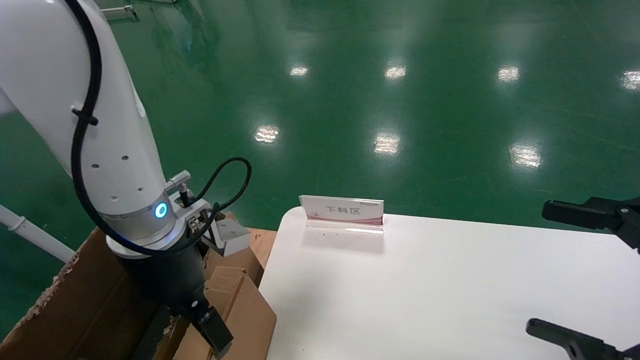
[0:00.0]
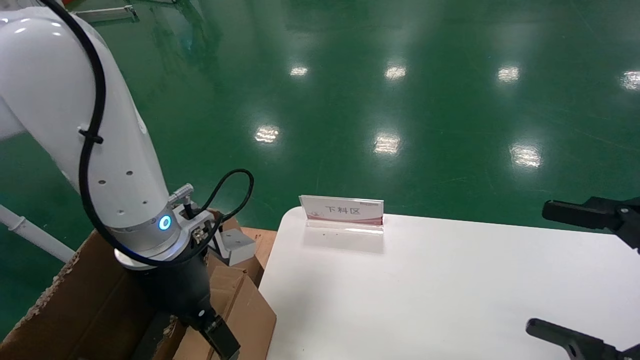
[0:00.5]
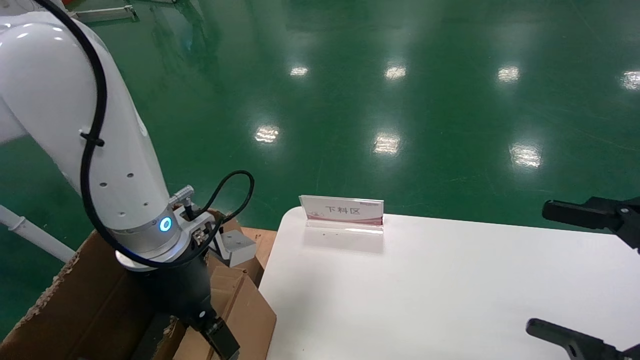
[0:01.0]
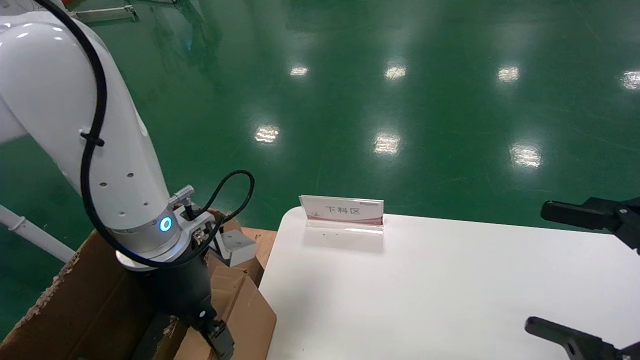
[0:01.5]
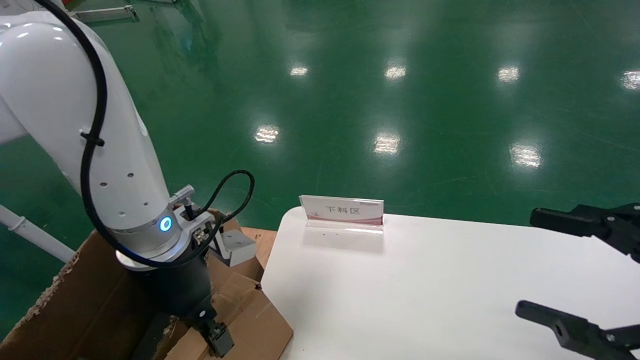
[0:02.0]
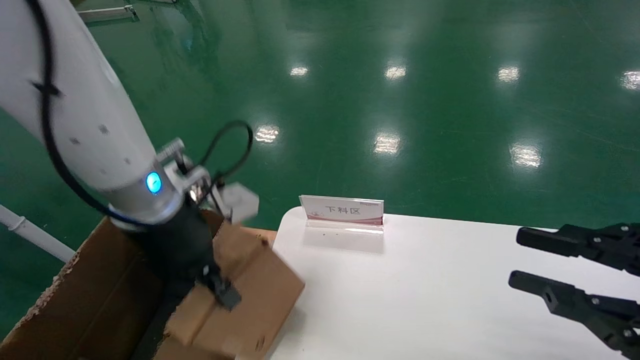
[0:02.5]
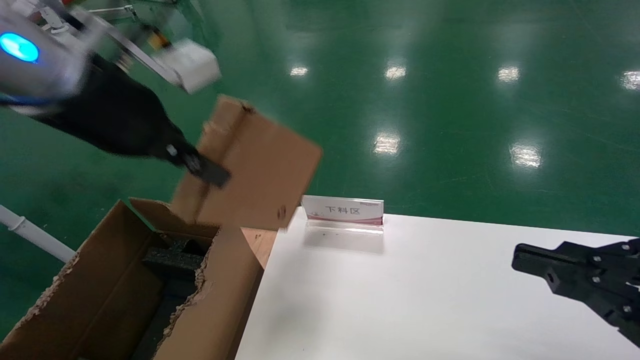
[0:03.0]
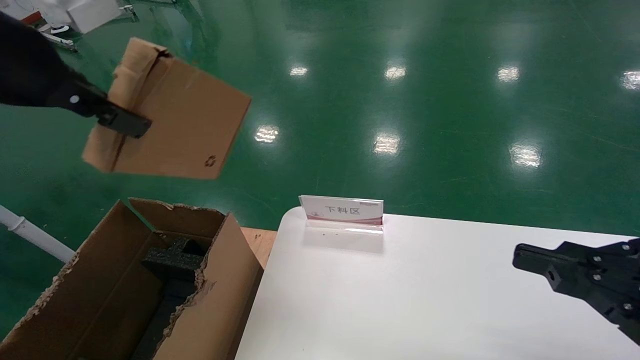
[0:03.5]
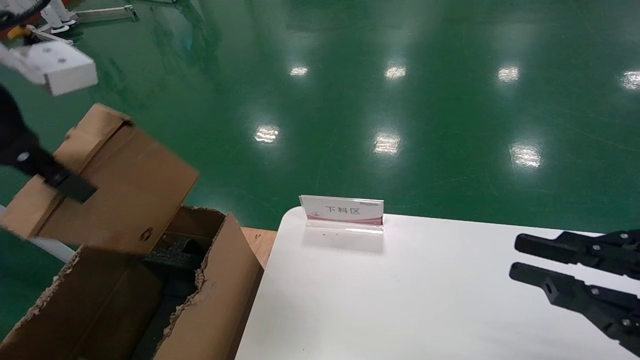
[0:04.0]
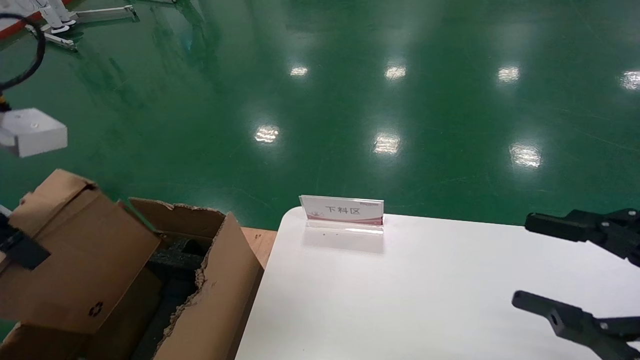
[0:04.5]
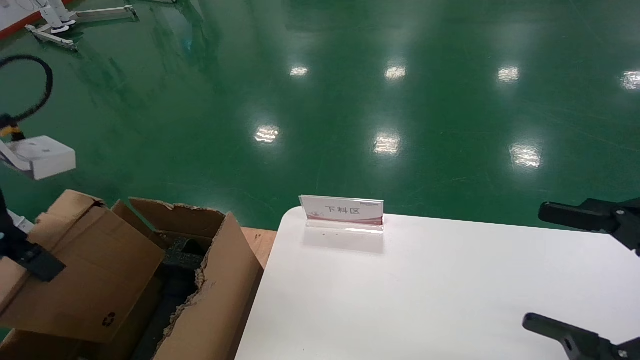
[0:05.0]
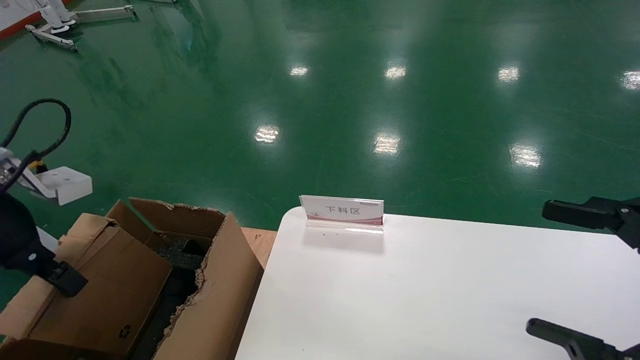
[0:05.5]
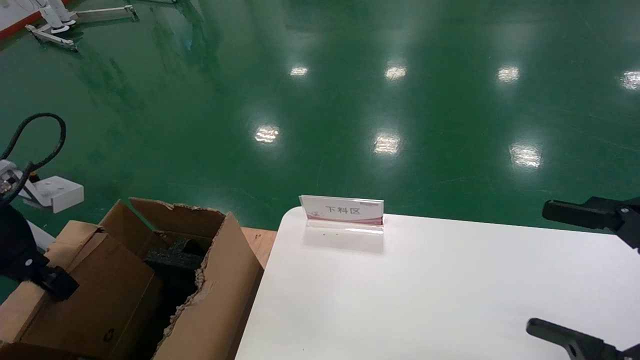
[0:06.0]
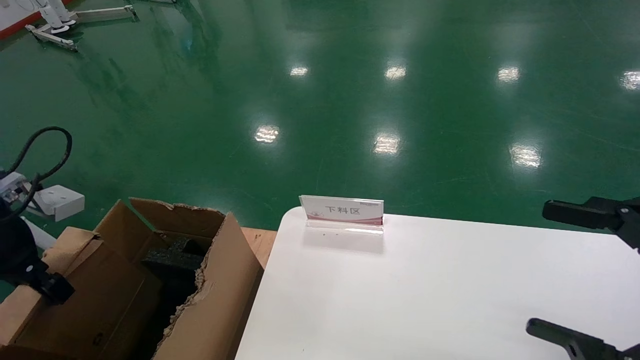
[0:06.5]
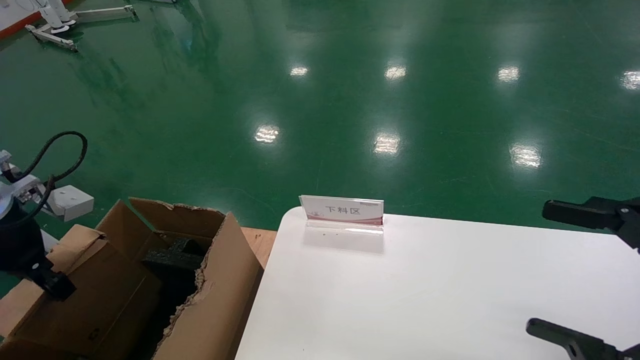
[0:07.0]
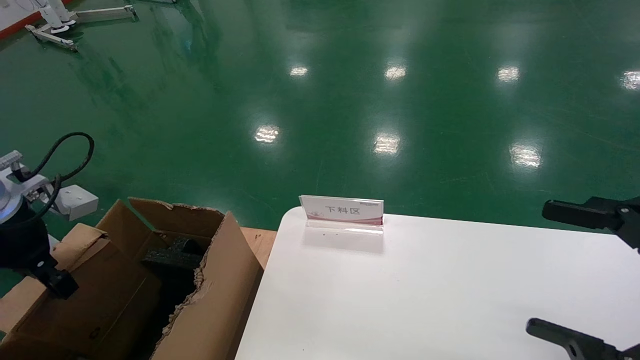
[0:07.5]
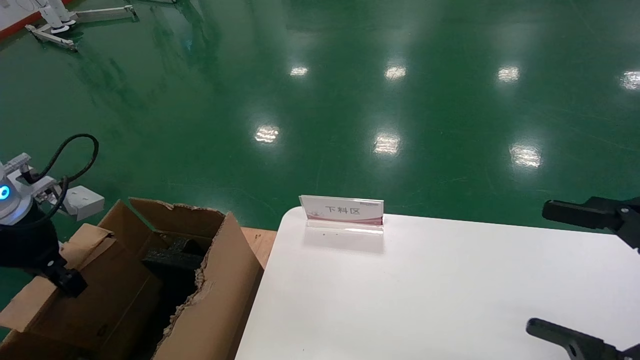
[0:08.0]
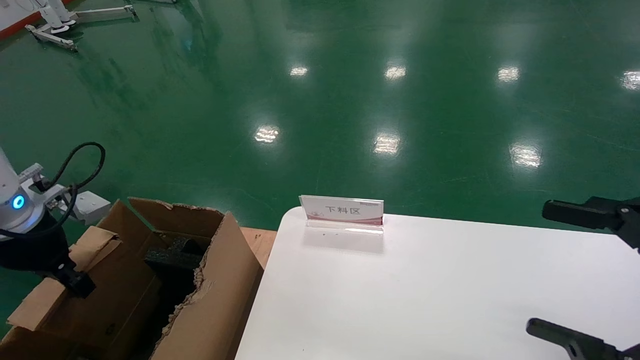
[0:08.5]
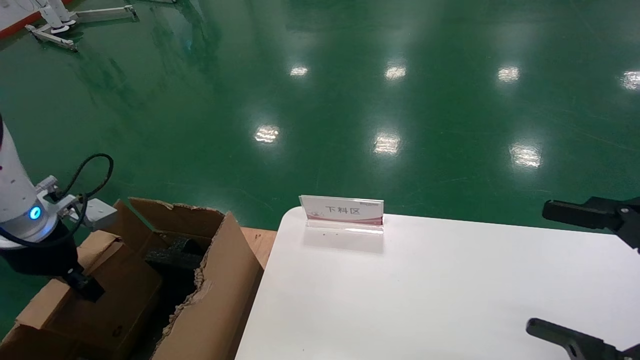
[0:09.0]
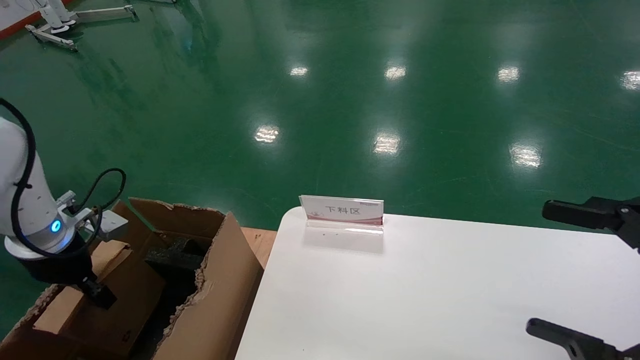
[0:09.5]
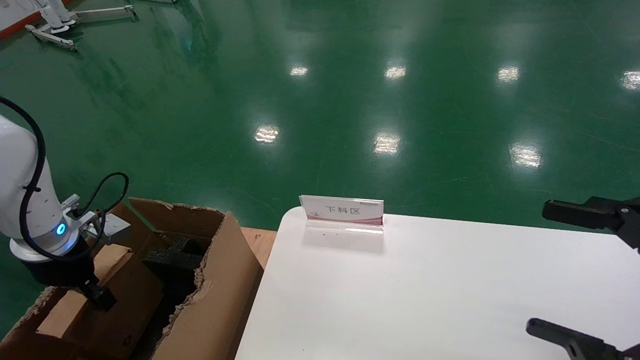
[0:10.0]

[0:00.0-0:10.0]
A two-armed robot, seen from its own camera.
Task of the whole recording: pick up the small cardboard box and load it into the large cardboard box.
0:00.0 to 0:02.0: The left gripper closes up.
0:02.0 to 0:04.0: The right gripper closes up, while the left gripper moves upward, backward and to the left, roughly 25 cm.
0:04.0 to 0:06.0: The right gripper opens its fingers. Meanwhile the left gripper goes approximately 15 cm downward and to the left.
0:06.0 to 0:08.0: The left gripper ends up some 5 cm from where it was.
0:08.0 to 0:10.0: The left gripper shifts some 10 cm downward.

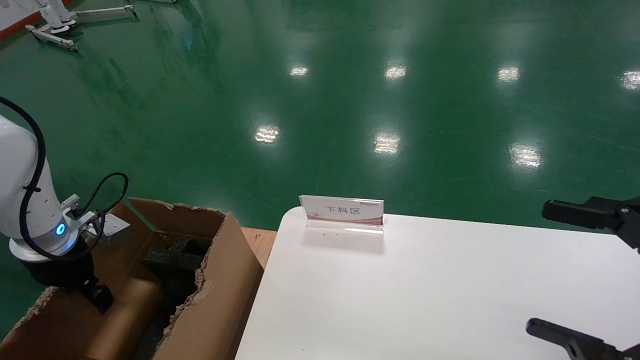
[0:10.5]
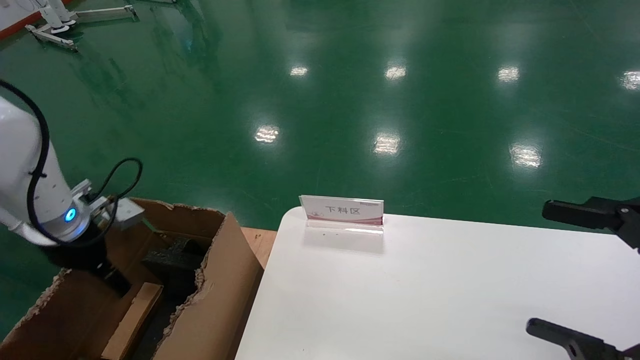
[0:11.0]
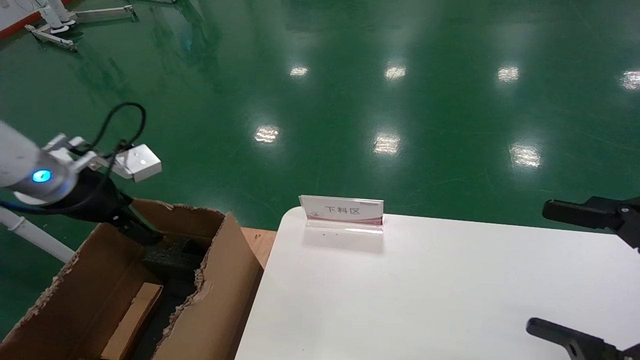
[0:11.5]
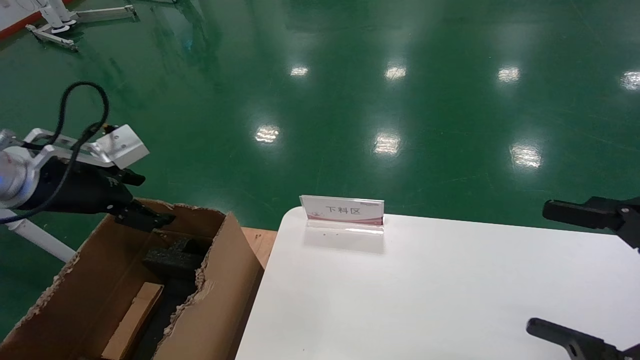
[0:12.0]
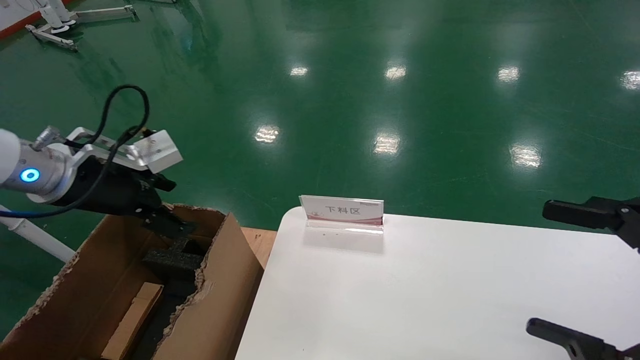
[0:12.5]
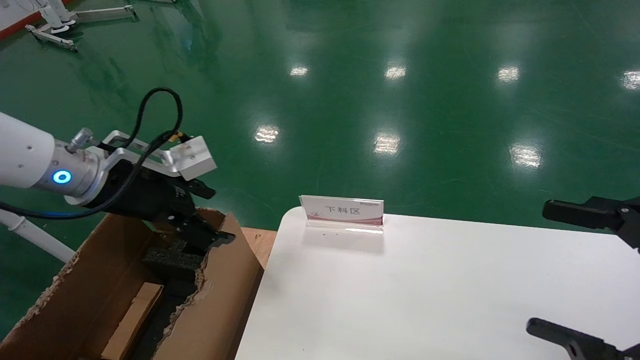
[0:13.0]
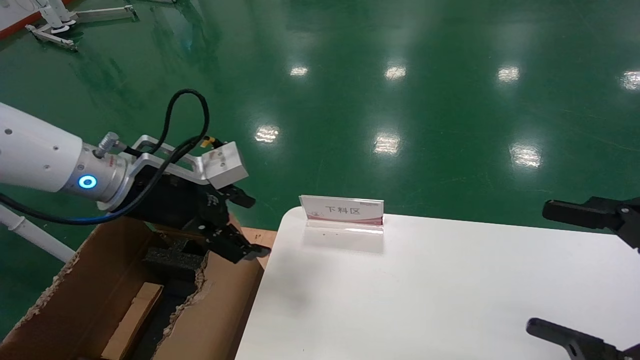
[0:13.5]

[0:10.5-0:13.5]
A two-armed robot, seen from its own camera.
Task of the whole recording: pick up the small cardboard box and load it into the large cardboard box.
0:10.5 to 0:12.0: The left gripper travels upward by some 10 cm, and opens.
0:12.0 to 0:13.5: The left gripper goes approximately 10 cm to the right.
